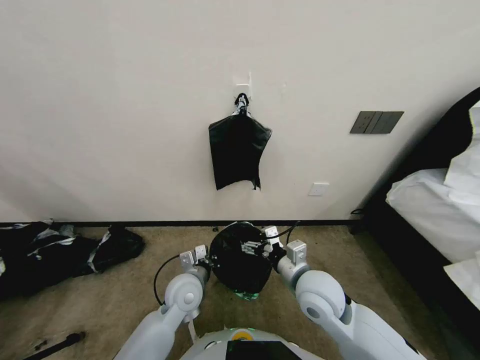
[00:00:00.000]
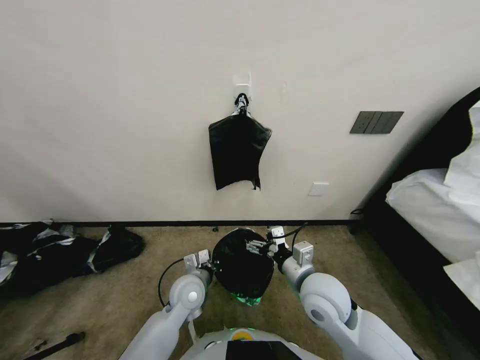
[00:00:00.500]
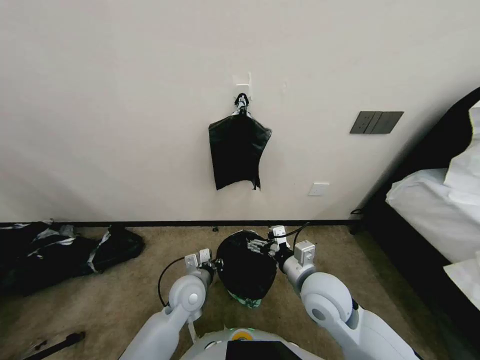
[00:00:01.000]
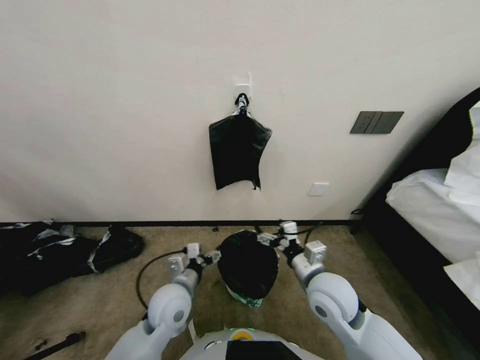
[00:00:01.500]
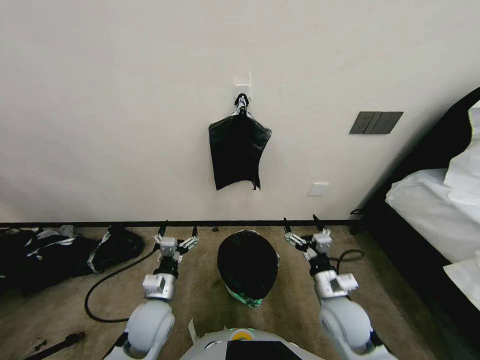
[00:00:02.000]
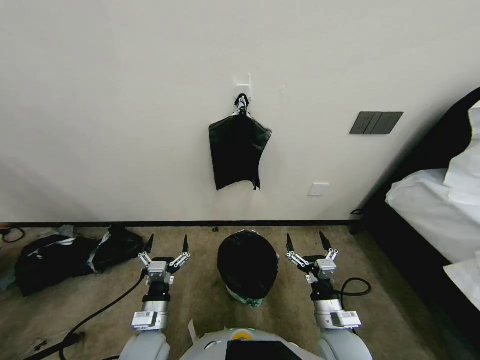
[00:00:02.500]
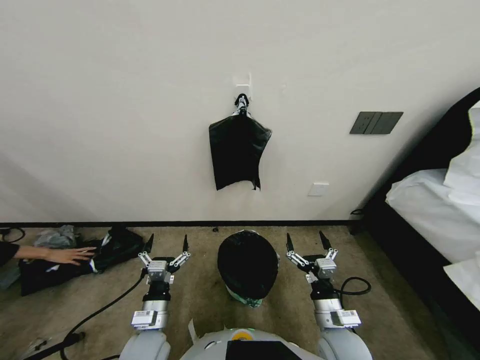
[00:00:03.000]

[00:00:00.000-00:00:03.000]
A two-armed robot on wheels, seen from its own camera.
Task of the whole recording: Place a trash bag onto the trash bin.
00:00:00.000 to 00:00:01.500: The left gripper opens.
00:00:01.500 to 00:00:03.000: The right gripper moves downward and backward, about 15 cm. Meanwhile the left gripper moves backward, to the left and downward, some 15 cm.
